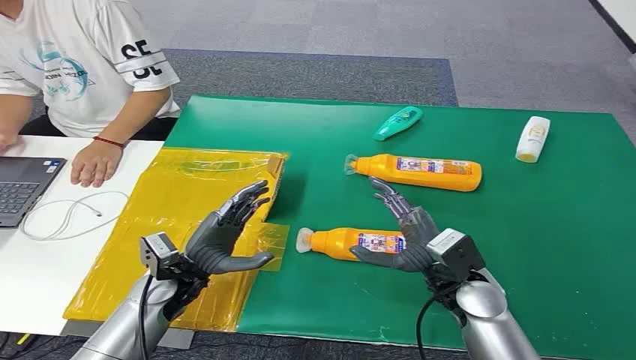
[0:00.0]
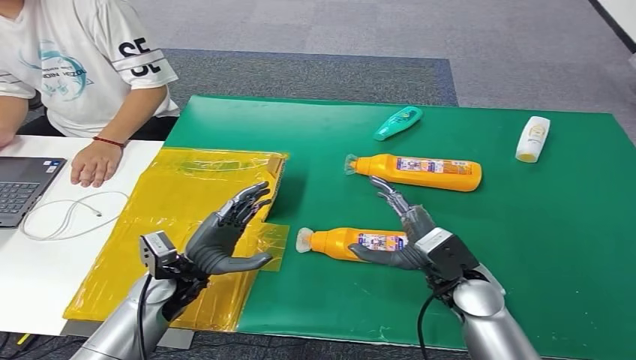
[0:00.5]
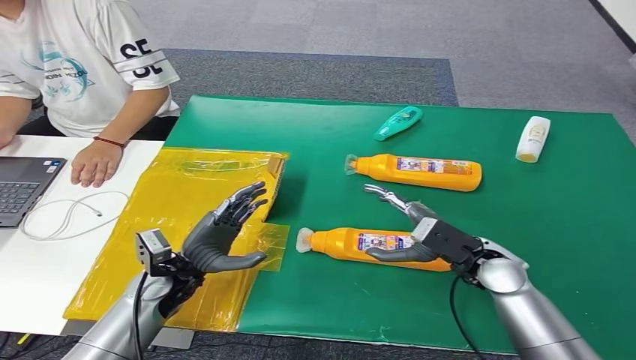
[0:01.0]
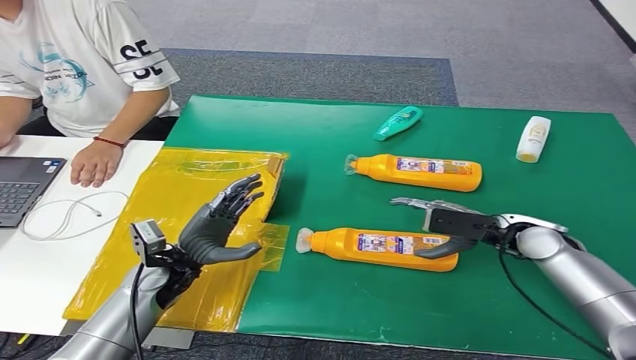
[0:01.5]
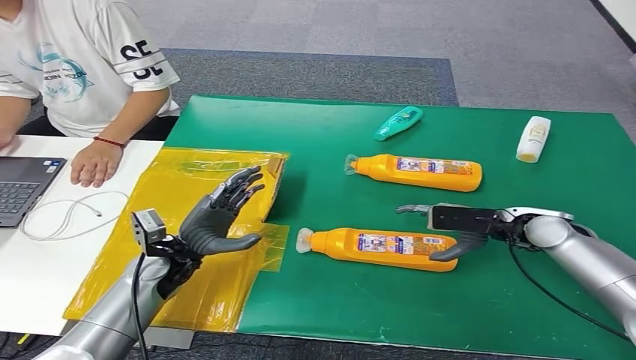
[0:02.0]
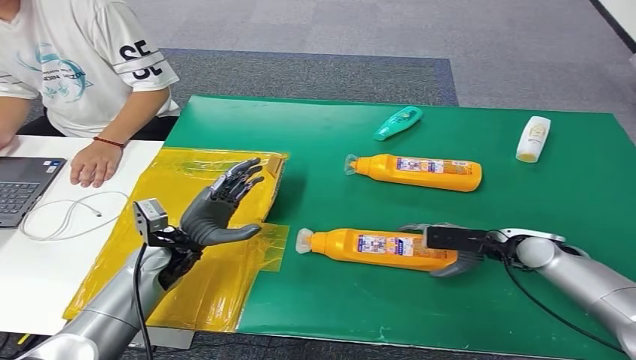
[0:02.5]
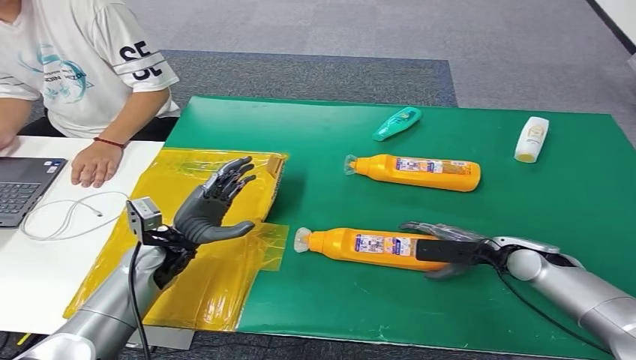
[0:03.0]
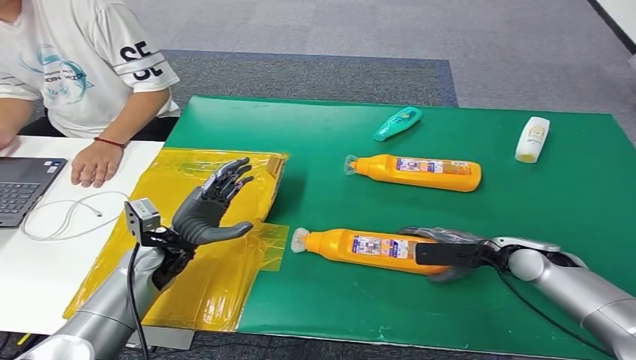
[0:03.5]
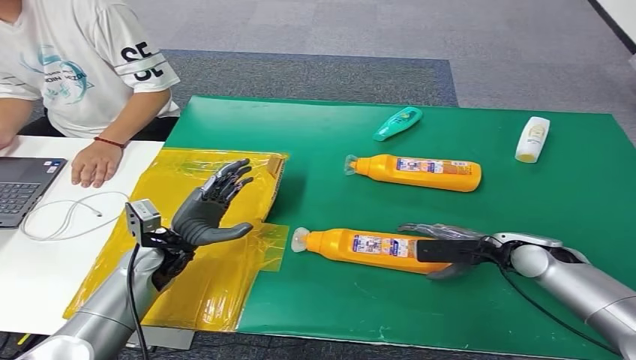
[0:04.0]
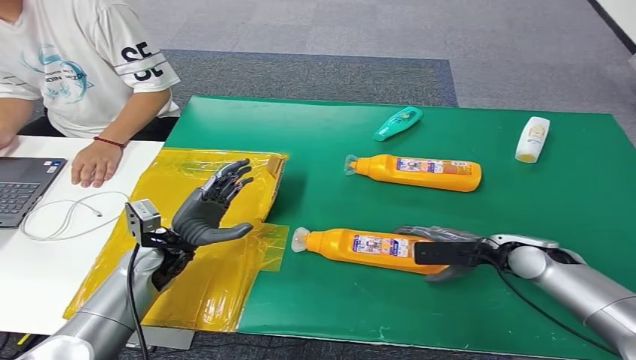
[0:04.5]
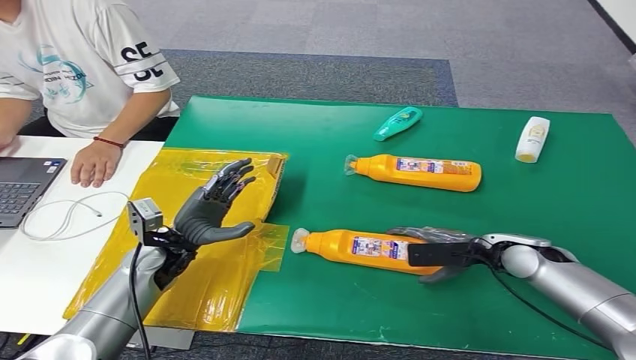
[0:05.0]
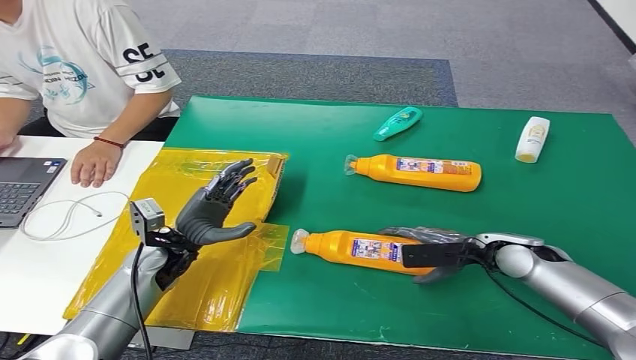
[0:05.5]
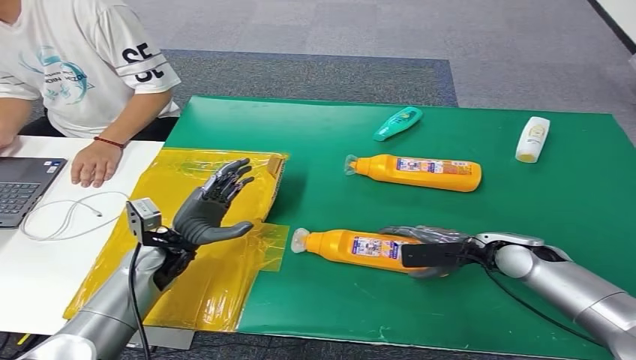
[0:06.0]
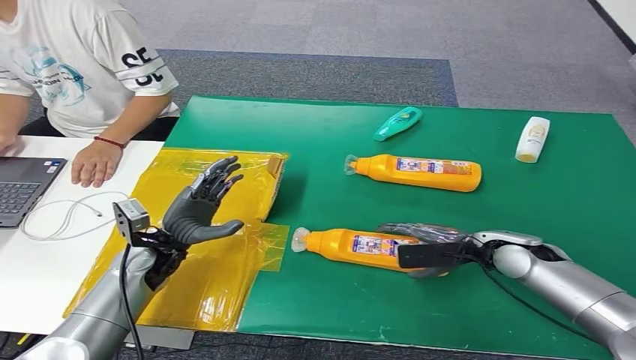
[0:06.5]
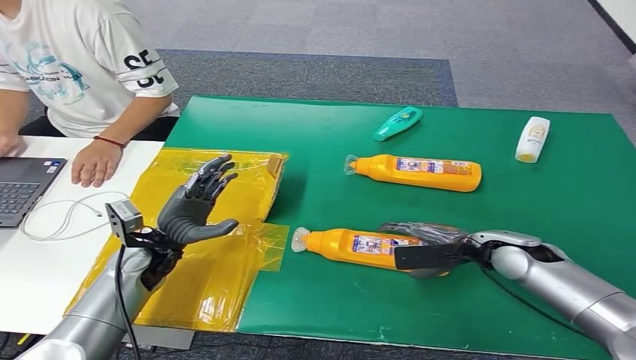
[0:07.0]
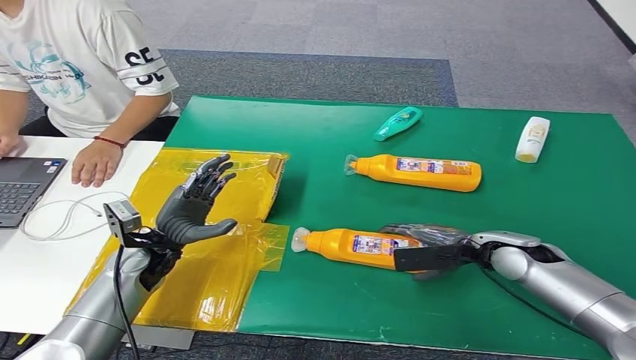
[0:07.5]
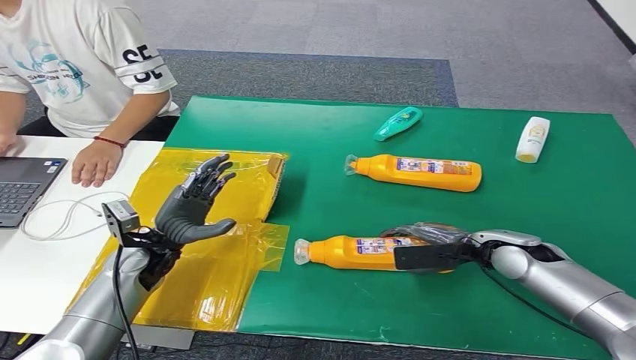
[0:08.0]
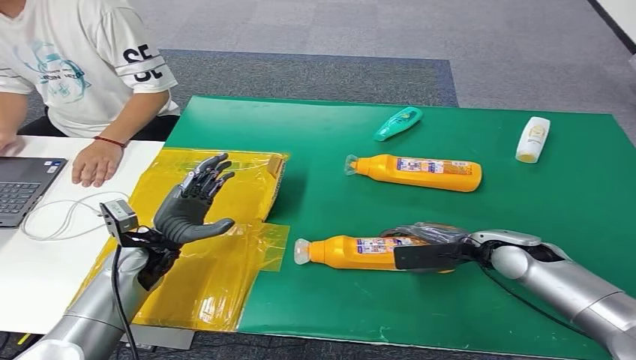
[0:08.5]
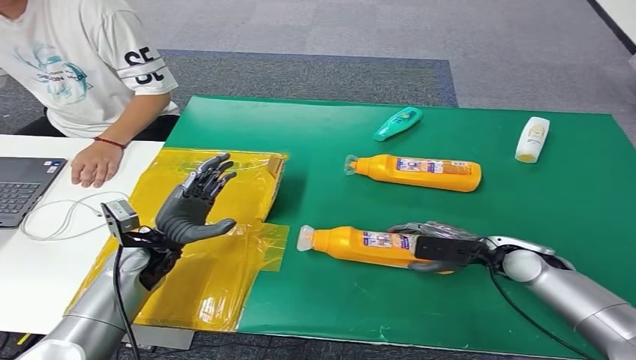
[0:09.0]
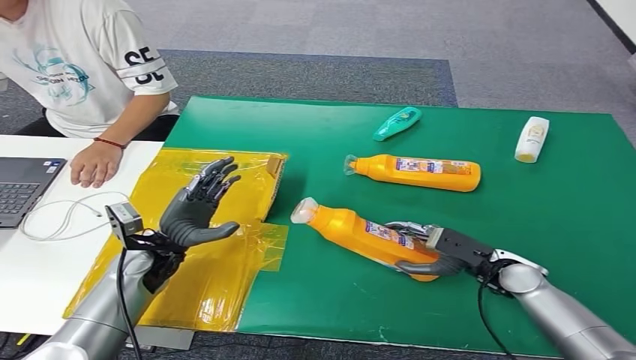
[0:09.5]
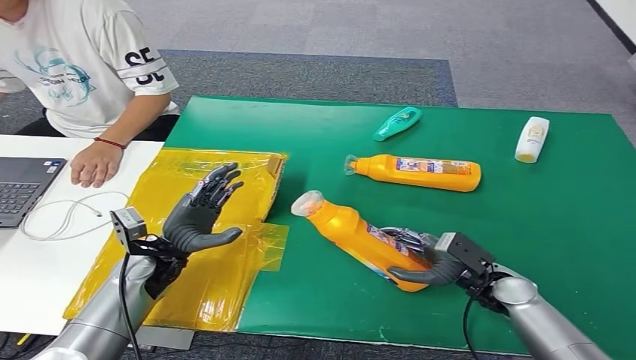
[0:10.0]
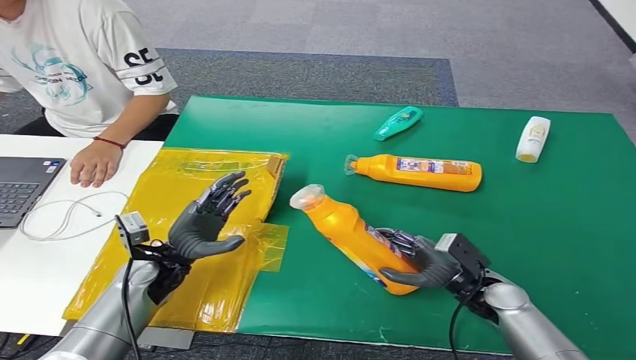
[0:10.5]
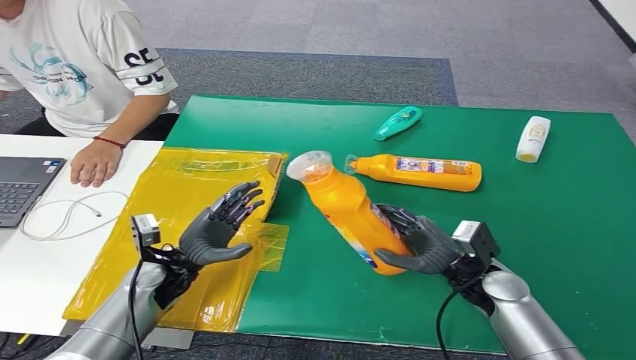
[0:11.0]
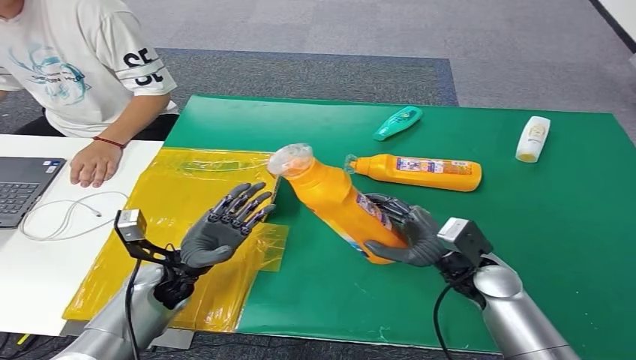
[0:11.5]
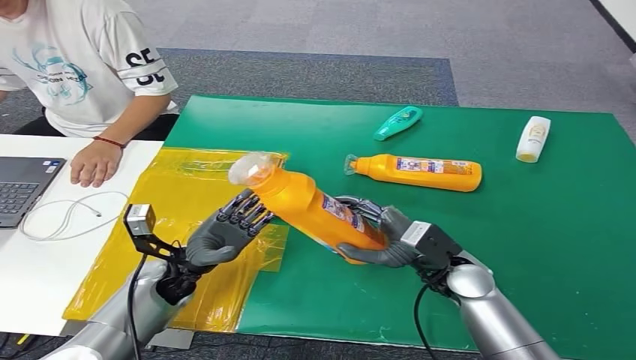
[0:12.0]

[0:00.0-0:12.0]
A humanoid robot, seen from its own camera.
Step, 0:00.0 to 0:11.0: Pick up the bottle from the table.
0:02.0 to 0:04.0: The right hand moves approximately 5 cm.
0:04.0 to 0:08.0: There are only small adjustments of the hands.
0:08.0 to 0:10.0: The right hand travels downward and backward by roughly 10 cm.
0:10.0 to 0:12.0: The right hand goes roughly 10 cm to the left and upward.

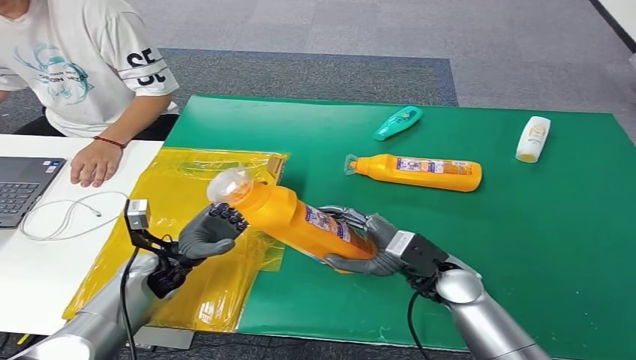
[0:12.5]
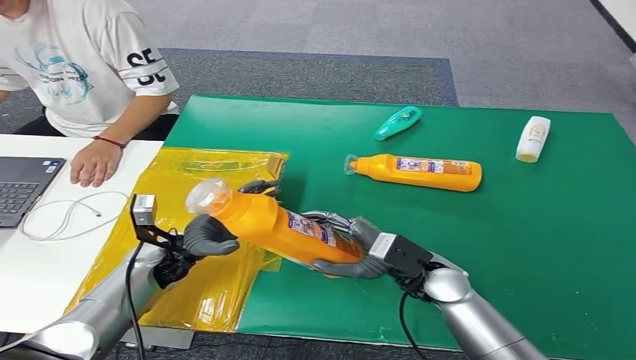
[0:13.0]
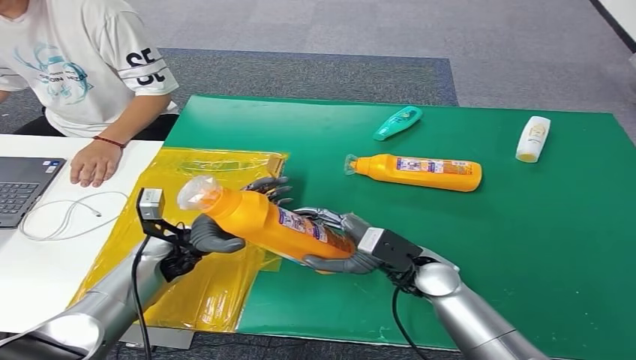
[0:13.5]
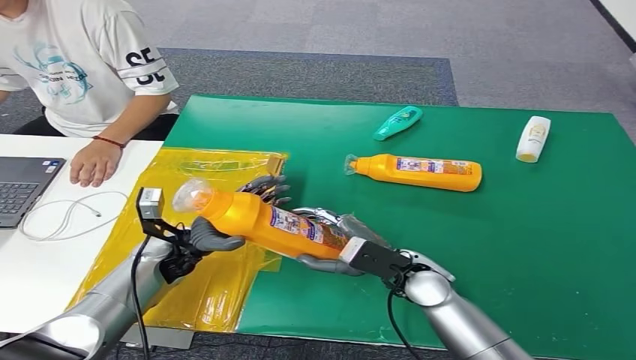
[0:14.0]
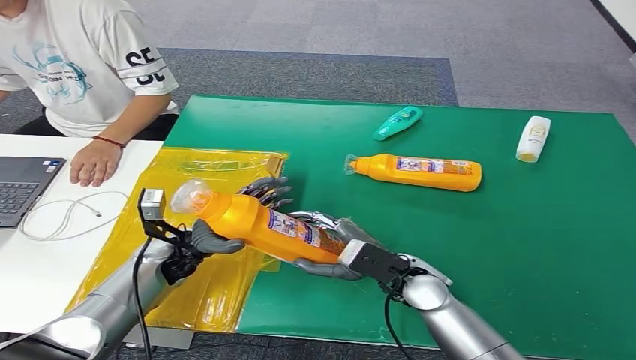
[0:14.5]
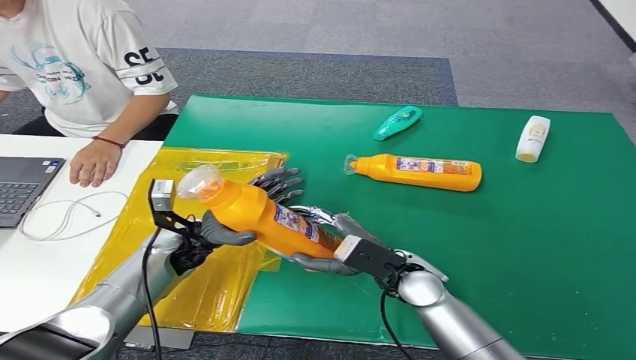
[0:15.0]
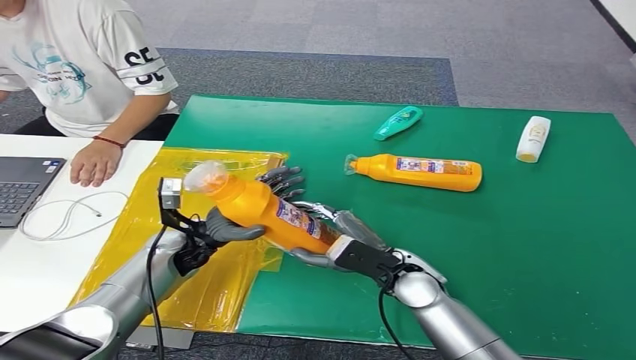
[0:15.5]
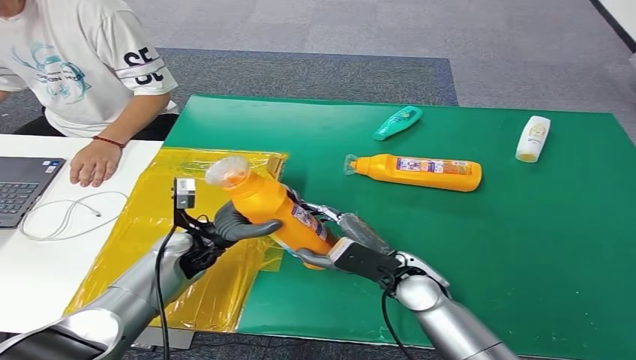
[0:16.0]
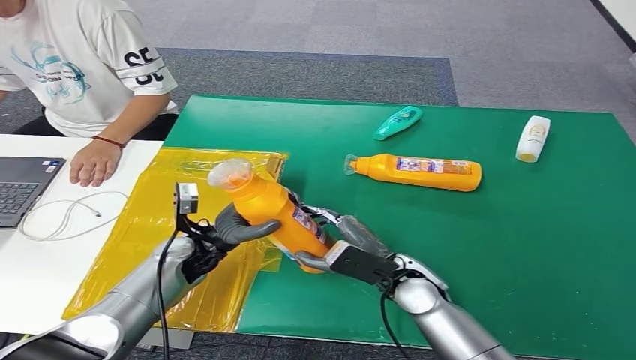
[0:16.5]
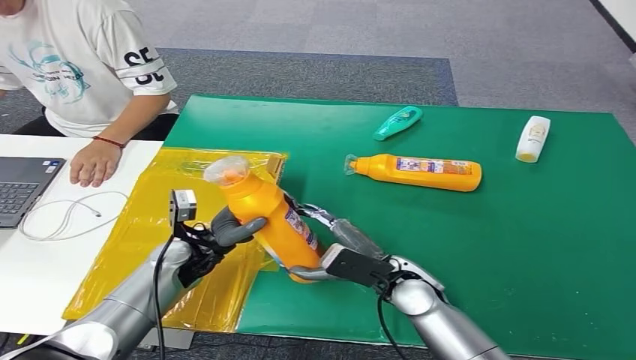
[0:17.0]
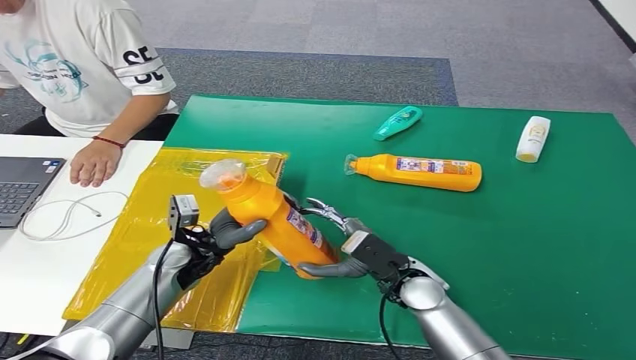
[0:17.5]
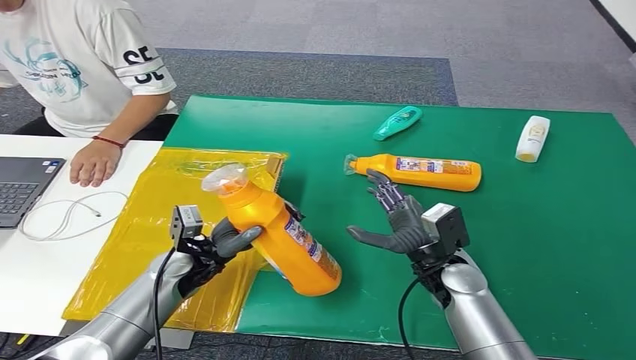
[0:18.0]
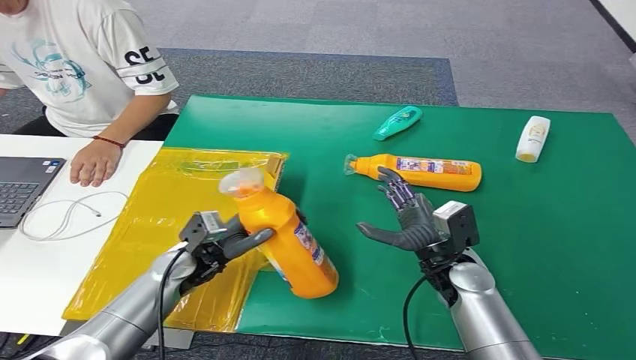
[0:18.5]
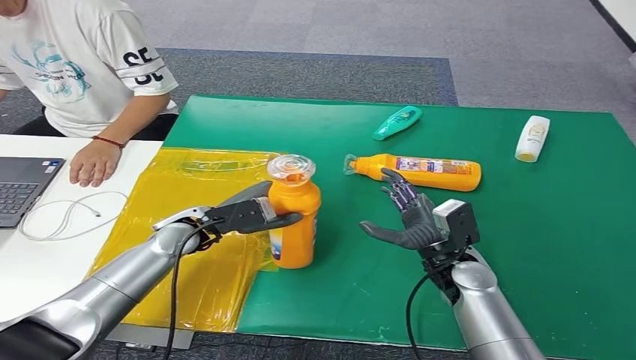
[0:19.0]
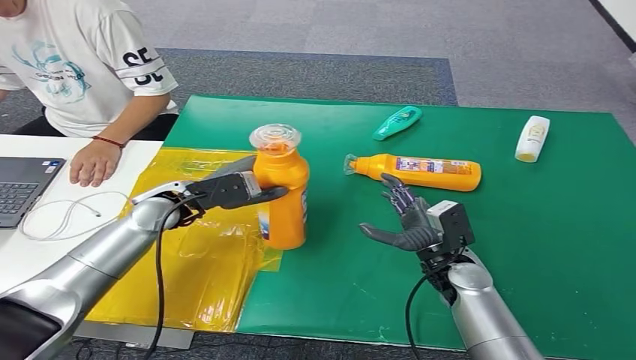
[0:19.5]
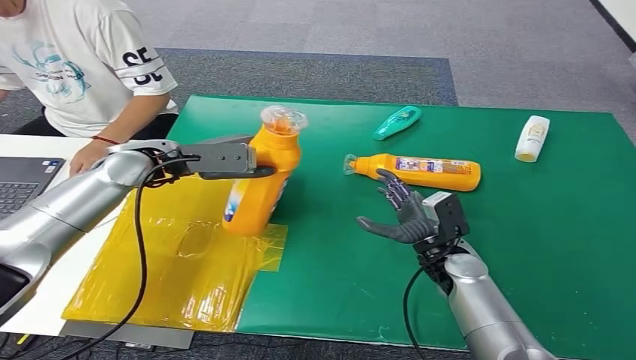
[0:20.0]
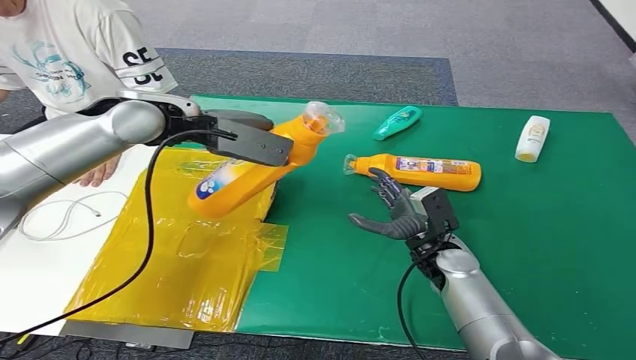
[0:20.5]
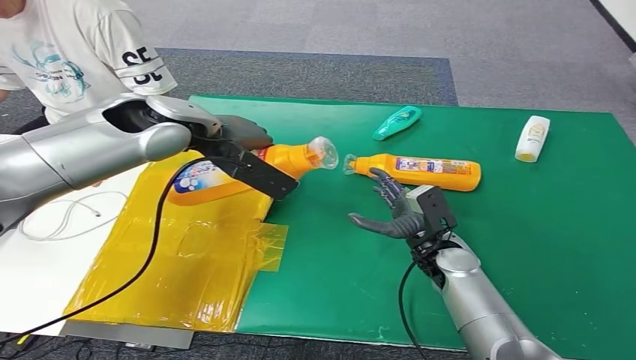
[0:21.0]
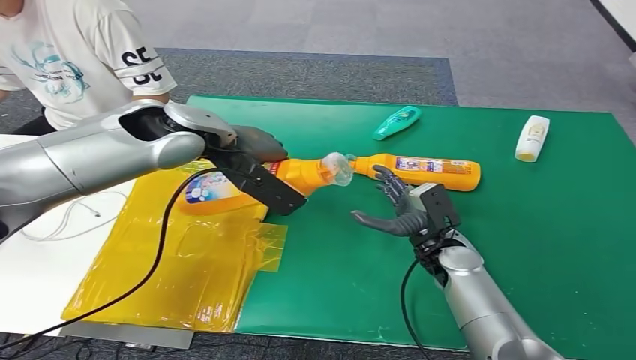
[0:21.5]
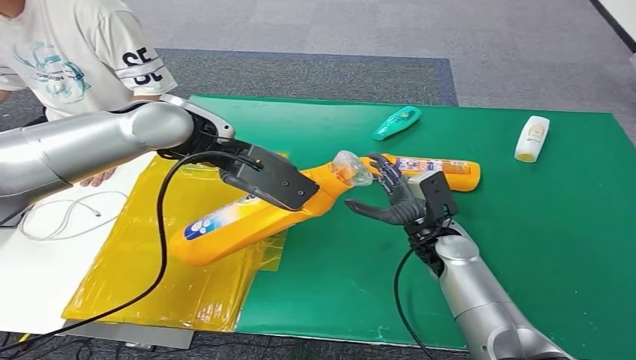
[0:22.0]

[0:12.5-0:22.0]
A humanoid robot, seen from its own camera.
0:12.5 to 0:14.5: The hands make only small movements.
0:14.5 to 0:16.5: There are only small adjustments of the hands.
0:16.5 to 0:18.0: The right hand is displaced to the right by roughly 5 cm.
